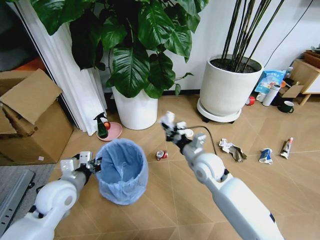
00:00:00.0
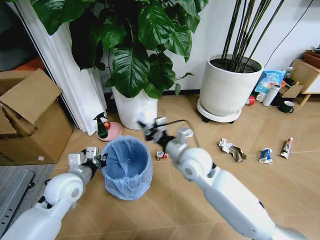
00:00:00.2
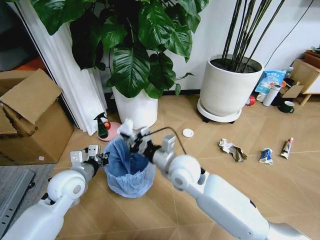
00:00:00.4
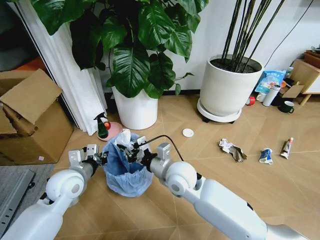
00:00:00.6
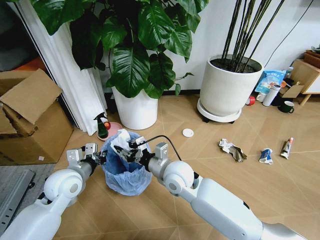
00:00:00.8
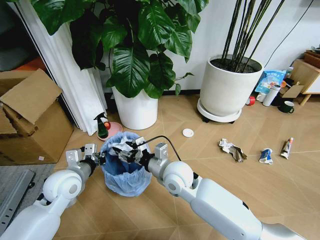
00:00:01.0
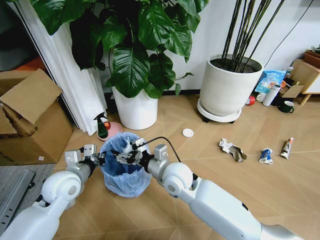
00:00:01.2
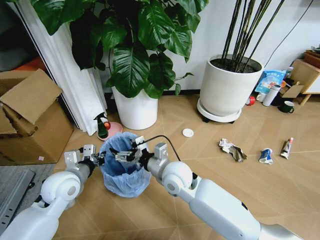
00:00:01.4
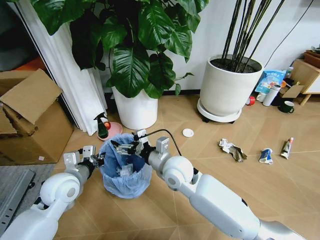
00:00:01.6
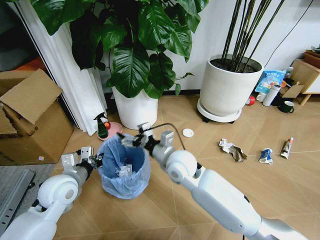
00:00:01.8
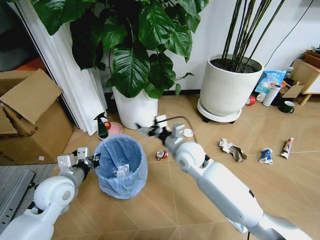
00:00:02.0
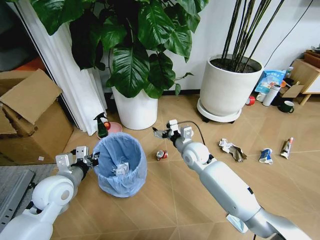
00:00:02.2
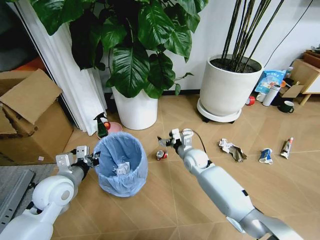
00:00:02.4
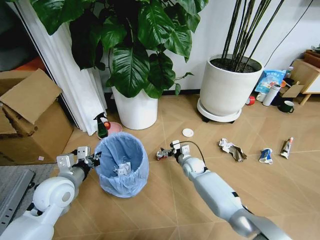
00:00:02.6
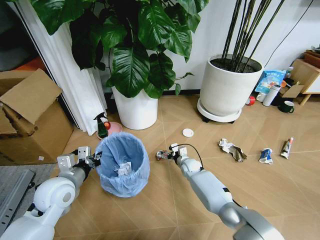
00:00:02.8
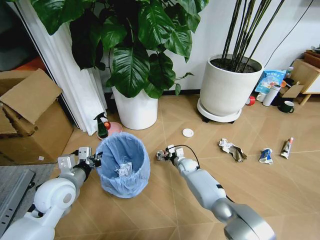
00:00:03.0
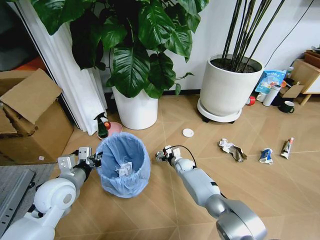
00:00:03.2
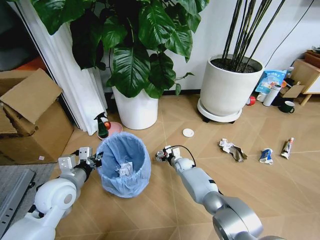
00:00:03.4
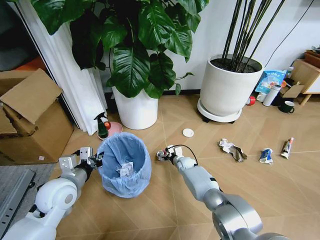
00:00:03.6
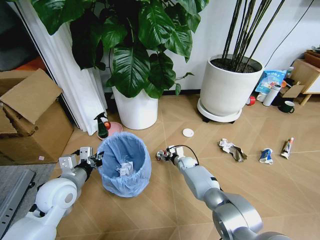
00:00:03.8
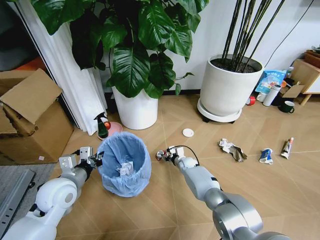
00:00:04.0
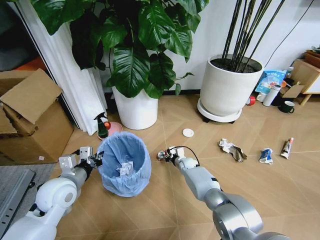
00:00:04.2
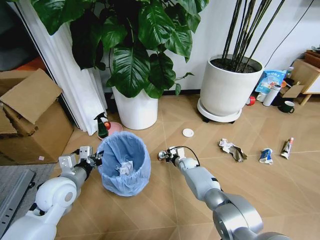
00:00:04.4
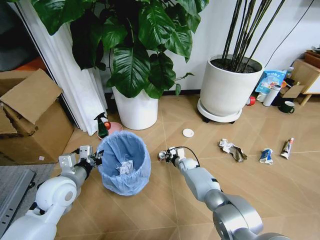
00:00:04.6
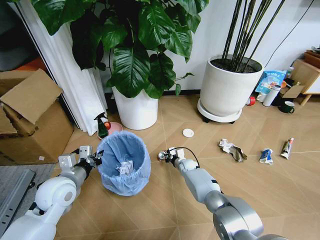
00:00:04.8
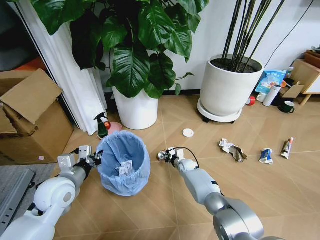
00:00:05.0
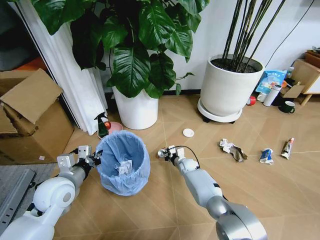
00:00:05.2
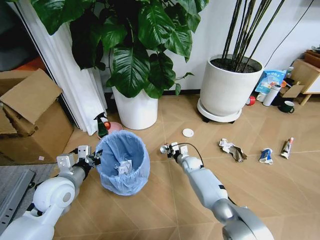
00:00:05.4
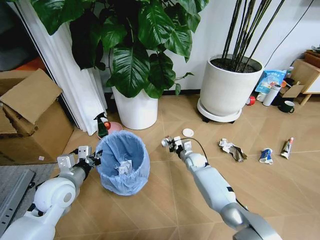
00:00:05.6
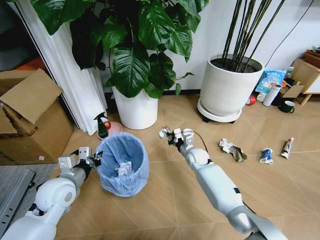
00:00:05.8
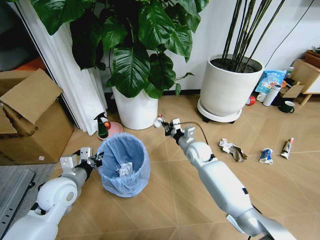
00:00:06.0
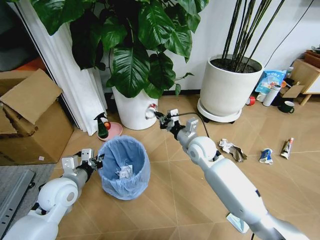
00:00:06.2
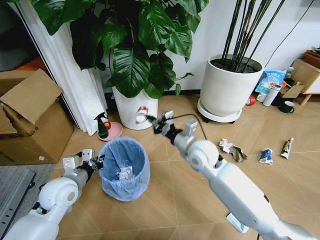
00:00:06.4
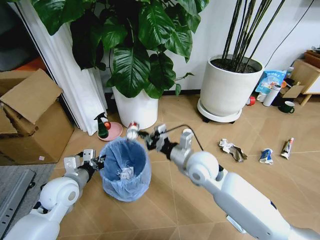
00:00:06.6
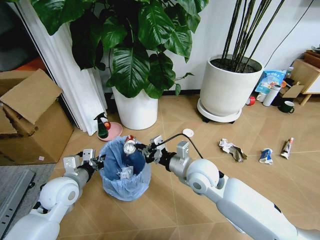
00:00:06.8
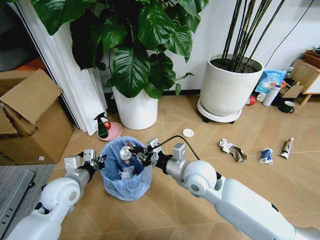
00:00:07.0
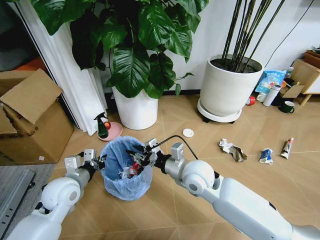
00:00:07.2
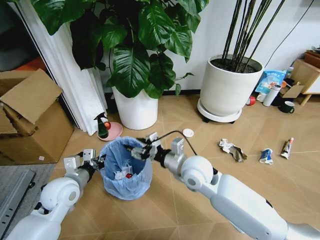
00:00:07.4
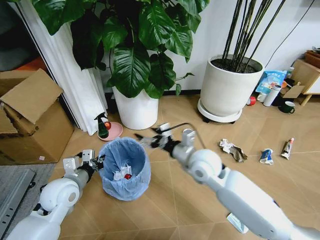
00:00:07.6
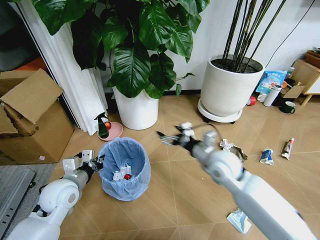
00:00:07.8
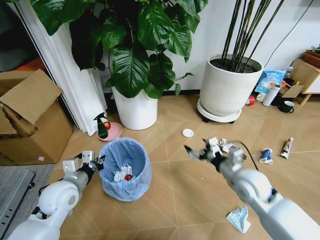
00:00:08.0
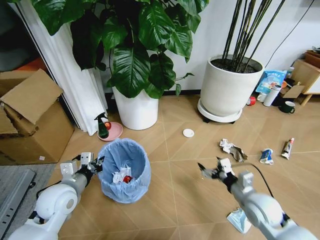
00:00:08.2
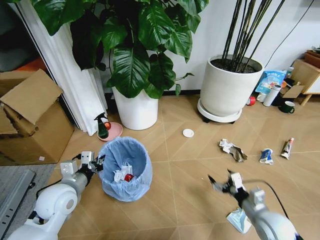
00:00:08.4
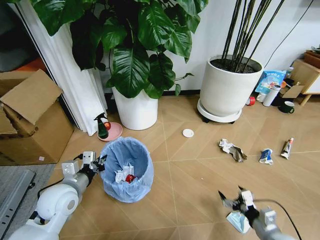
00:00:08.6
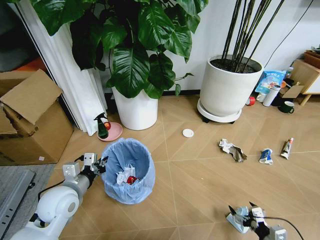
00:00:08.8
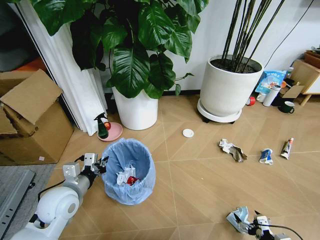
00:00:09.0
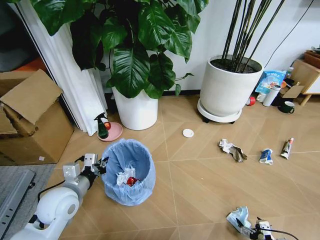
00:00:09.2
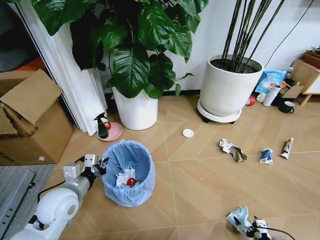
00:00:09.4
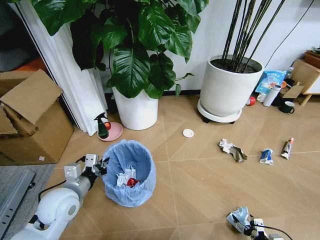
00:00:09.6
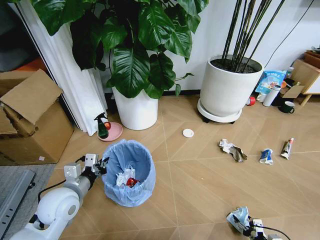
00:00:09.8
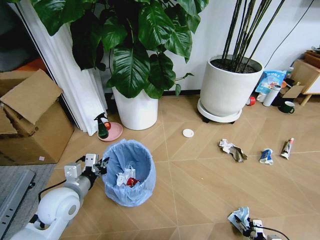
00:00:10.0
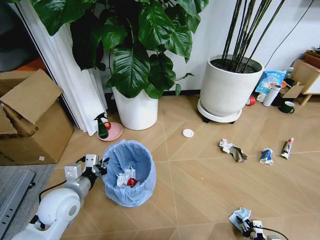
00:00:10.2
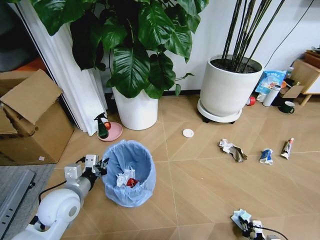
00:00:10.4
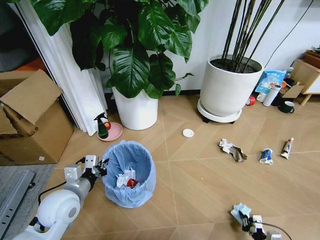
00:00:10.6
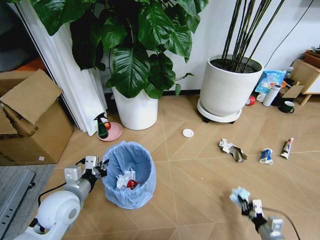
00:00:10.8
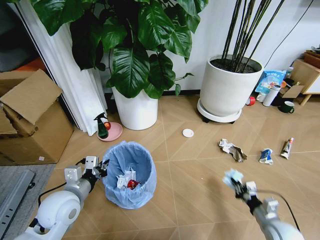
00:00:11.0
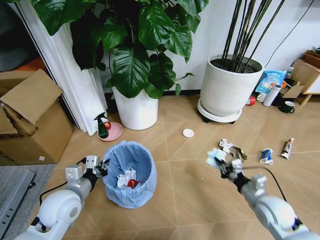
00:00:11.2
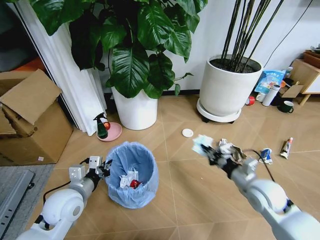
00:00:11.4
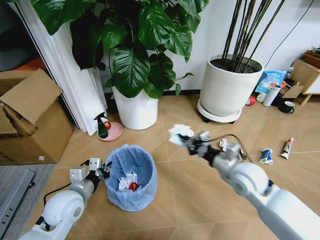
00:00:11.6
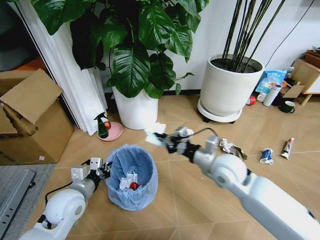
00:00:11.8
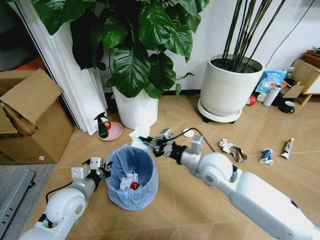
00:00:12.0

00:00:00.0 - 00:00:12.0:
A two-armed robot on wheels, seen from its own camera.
Task of the whole recording: Pick up the trash bin and place the garbage on the floor into it.
00:00:00.0 - 00:00:01.6: The right gripper moves to the left, some 10 cm, and opens its fingers.
00:00:01.6 - 00:00:03.0: The right gripper moves downward and forward, roughly 30 cm.
00:00:03.0 - 00:00:04.4: The right gripper closes its fingers.
00:00:04.4 - 00:00:06.0: The right gripper moves upward, roughly 20 cm.
00:00:06.0 - 00:00:07.6: The right gripper travels backward and upward by some 15 cm, and opens up.
00:00:07.6 - 00:00:09.0: The right gripper travels to the right, backward and downward by roughly 50 cm.
00:00:09.0 - 00:00:10.4: The right gripper is displaced downward by some 10 cm, and closes.
00:00:10.4 - 00:00:12.0: The right gripper moves upward, to the left and forward, approximately 50 cm.

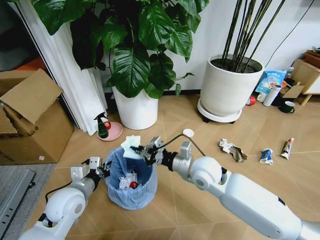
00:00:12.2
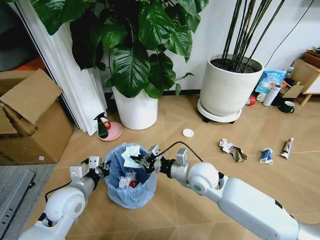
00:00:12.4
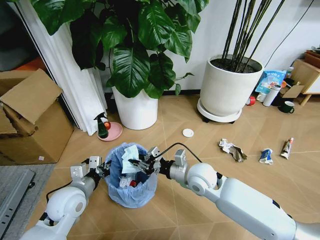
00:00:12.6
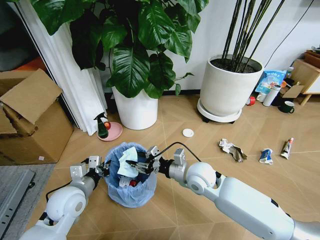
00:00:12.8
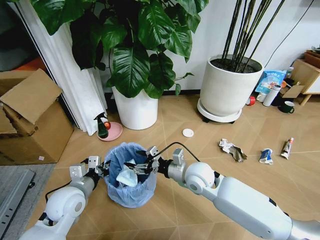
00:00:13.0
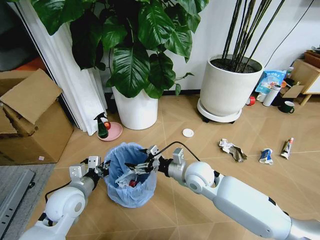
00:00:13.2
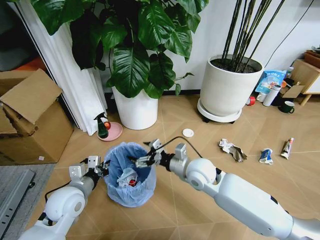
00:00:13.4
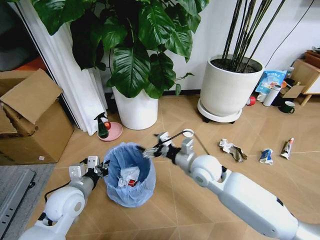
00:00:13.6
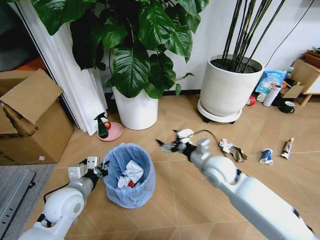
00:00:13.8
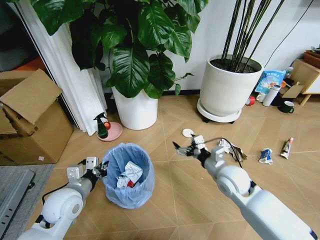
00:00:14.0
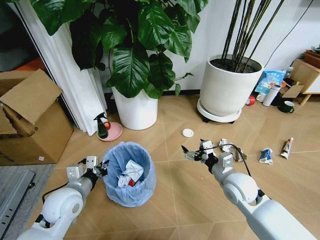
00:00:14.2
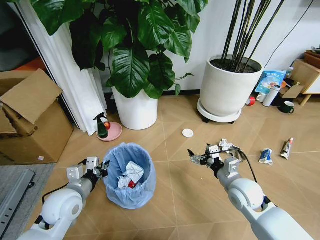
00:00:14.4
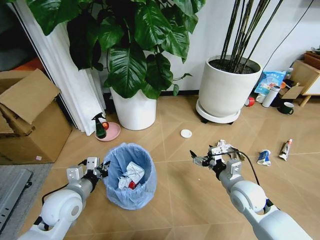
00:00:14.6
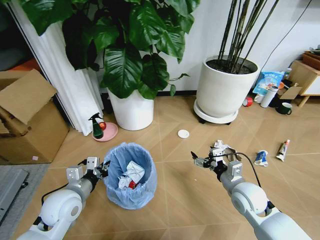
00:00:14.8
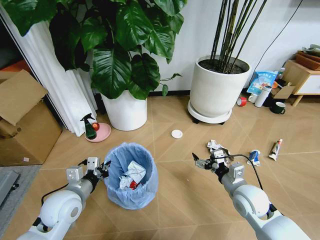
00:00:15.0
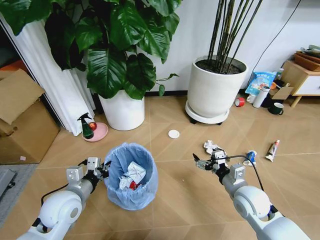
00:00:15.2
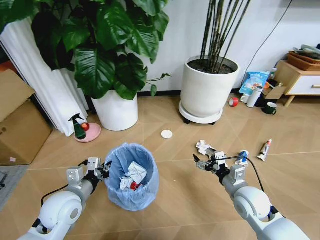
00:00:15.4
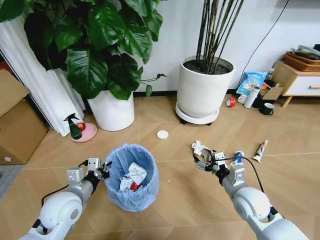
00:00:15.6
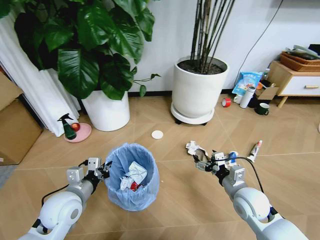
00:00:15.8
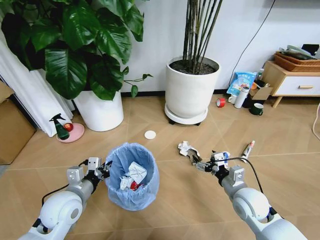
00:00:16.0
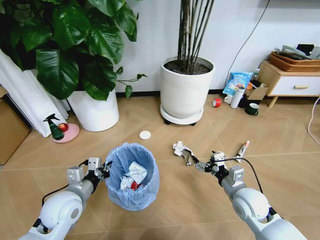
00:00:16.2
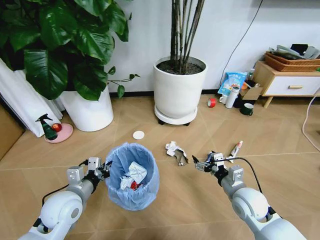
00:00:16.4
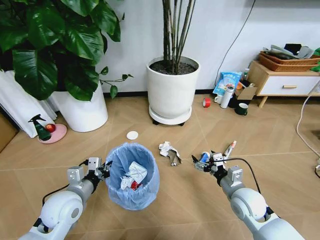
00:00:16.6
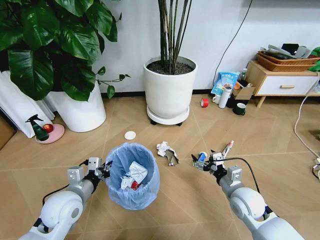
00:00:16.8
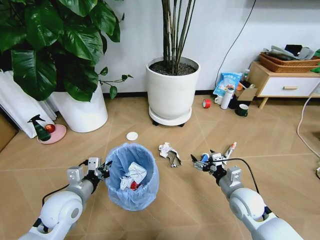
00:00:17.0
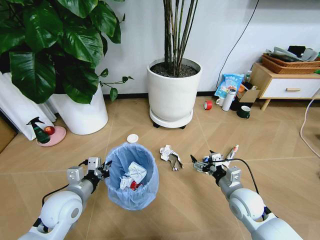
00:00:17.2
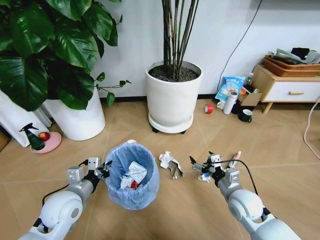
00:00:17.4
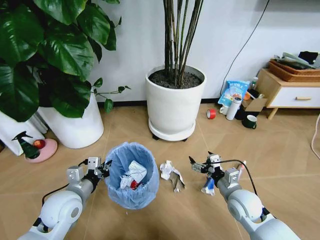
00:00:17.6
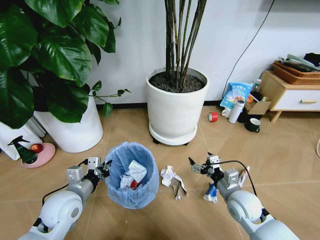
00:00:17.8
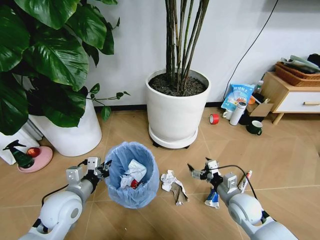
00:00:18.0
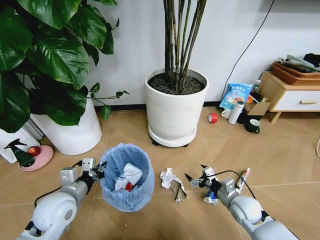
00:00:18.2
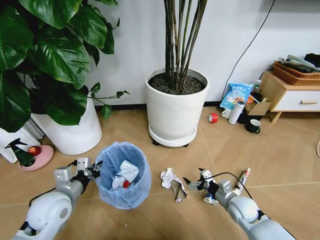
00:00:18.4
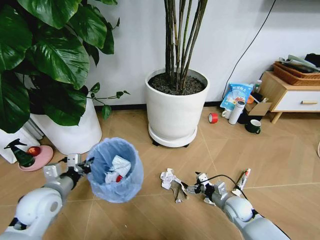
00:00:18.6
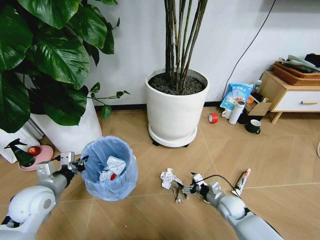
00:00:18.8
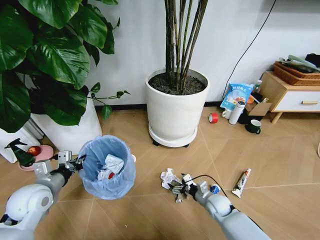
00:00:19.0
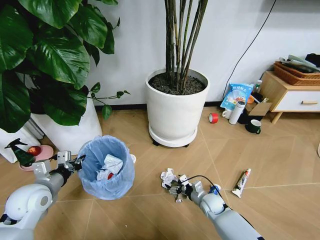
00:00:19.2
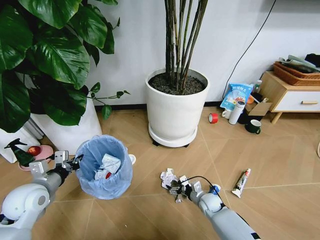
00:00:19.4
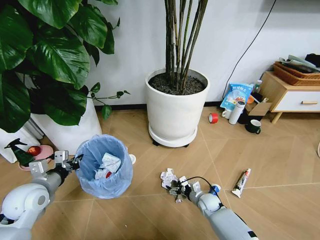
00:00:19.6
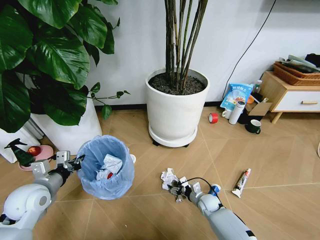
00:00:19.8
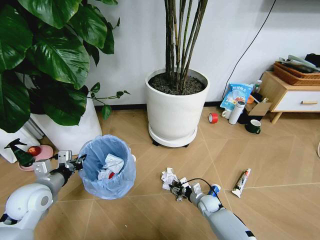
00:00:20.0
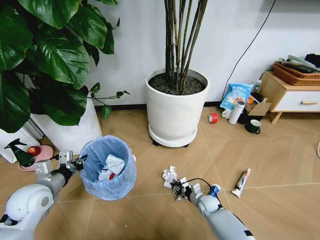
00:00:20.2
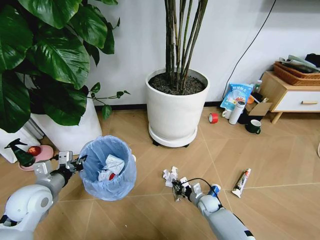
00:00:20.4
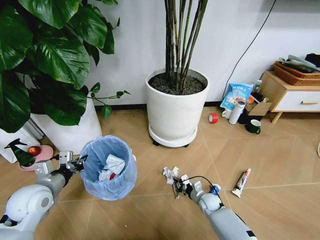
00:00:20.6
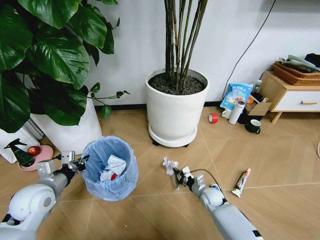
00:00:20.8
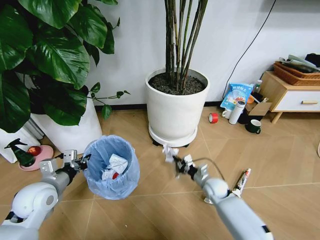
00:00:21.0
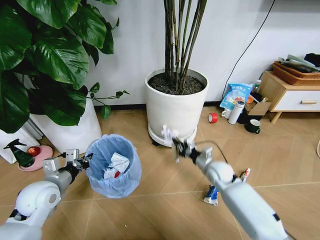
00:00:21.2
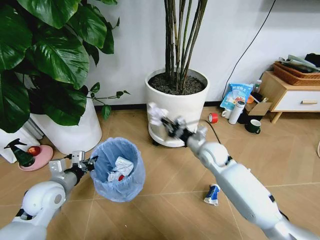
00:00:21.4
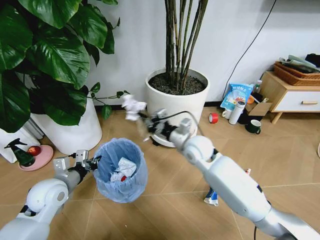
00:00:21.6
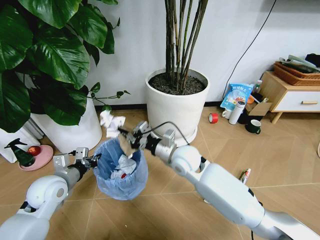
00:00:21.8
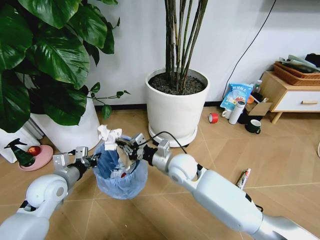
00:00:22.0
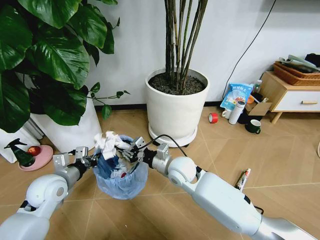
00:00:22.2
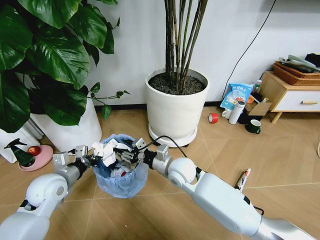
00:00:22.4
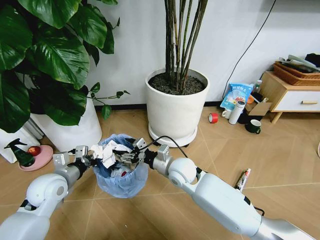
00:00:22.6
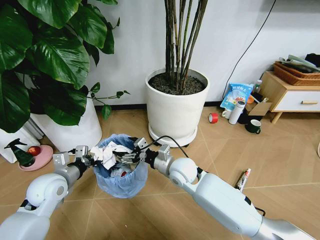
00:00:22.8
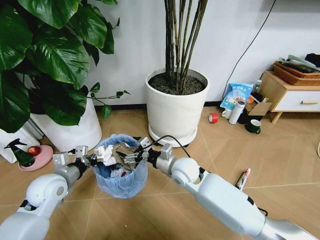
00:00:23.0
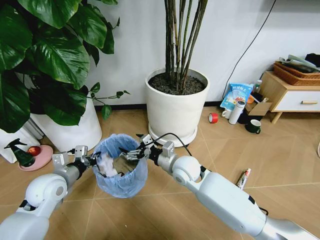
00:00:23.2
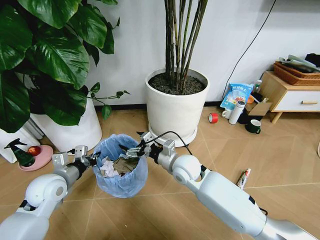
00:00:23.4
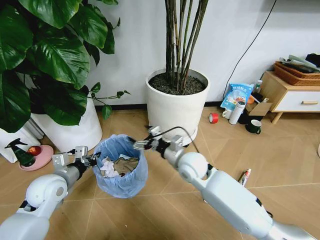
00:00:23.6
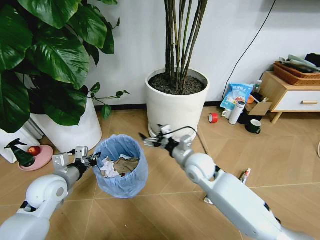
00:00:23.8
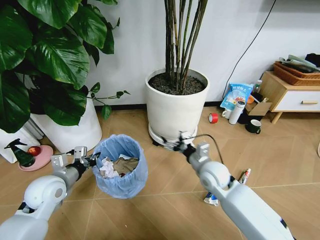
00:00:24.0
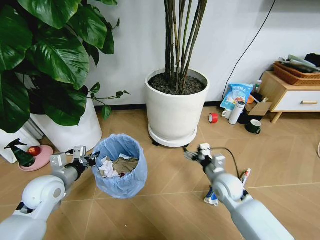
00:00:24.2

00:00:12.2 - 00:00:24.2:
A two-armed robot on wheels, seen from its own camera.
Task of the whole recording: Pick up the trash bin and place the garbage on the floor into it.
00:00:12.2 - 00:00:13.8: The right gripper travels to the right by some 5 cm, and opens up.
00:00:13.8 - 00:00:15.2: The right gripper moves to the right, backward and downward, approximately 15 cm.
00:00:16.6 - 00:00:18.2: The right gripper shifts about 5 cm downward.
00:00:18.2 - 00:00:19.8: The left gripper travels to the left by some 10 cm. The right gripper shifts about 20 cm downward, to the left and forward.
00:00:19.8 - 00:00:21.2: The right gripper travels upward by about 20 cm, and closes up.
00:00:21.2 - 00:00:22.6: The right gripper shifts about 20 cm to the left and upward, and opens up.
00:00:22.6 - 00:00:24.2: The right gripper is displaced to the right by approximately 15 cm.
